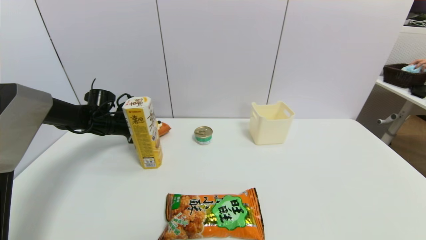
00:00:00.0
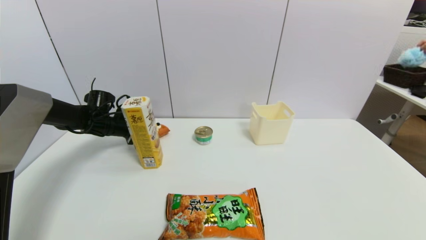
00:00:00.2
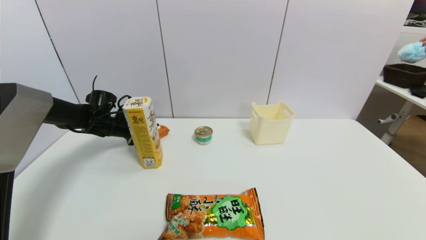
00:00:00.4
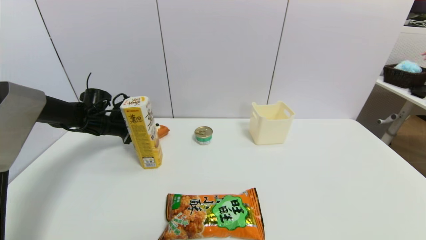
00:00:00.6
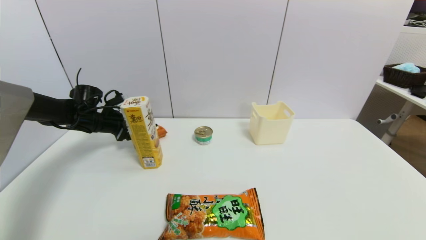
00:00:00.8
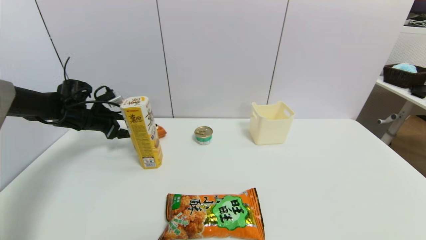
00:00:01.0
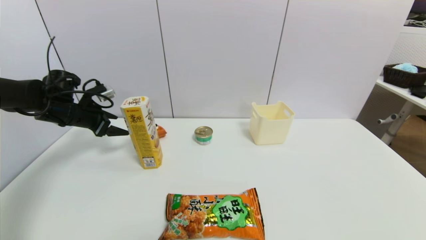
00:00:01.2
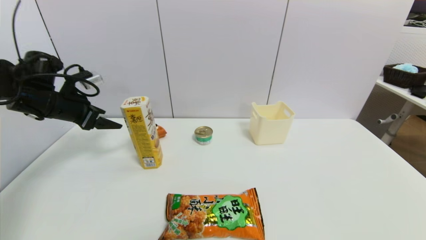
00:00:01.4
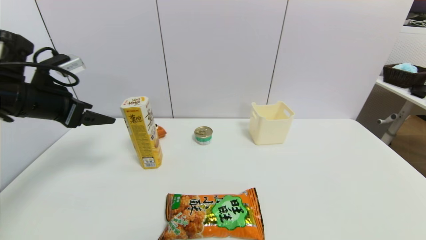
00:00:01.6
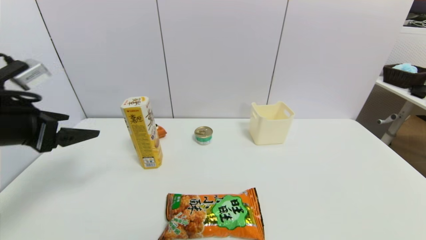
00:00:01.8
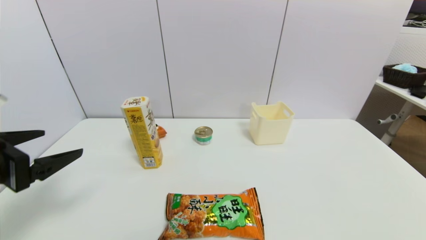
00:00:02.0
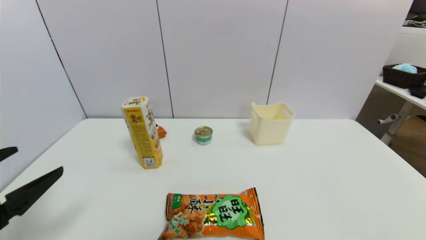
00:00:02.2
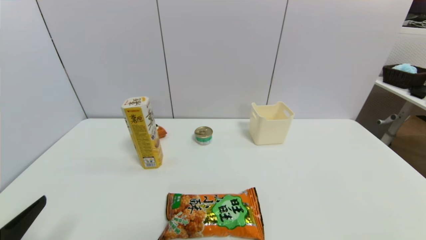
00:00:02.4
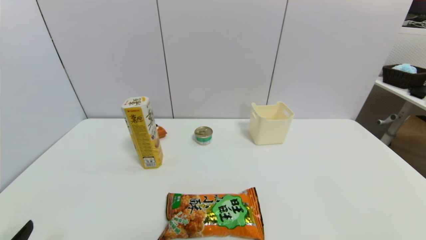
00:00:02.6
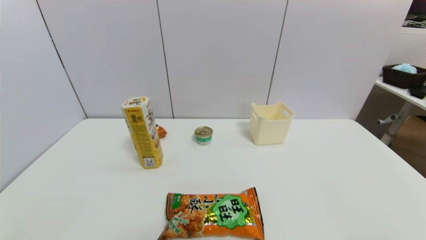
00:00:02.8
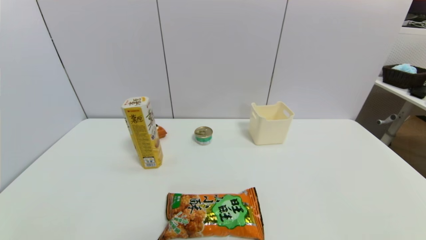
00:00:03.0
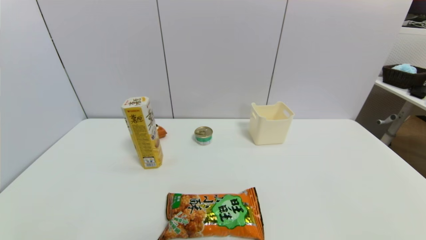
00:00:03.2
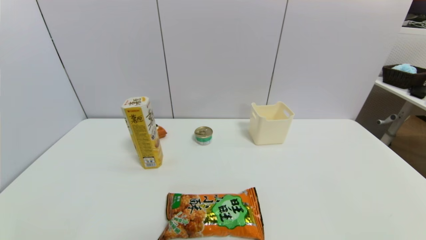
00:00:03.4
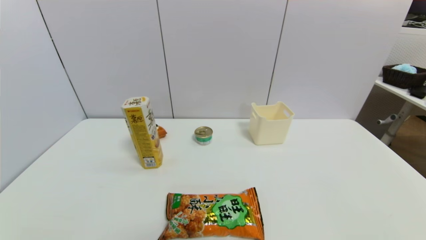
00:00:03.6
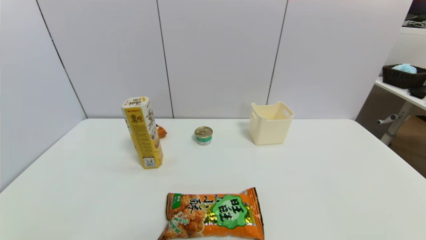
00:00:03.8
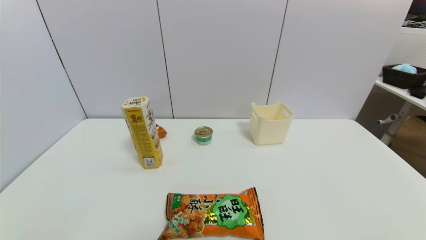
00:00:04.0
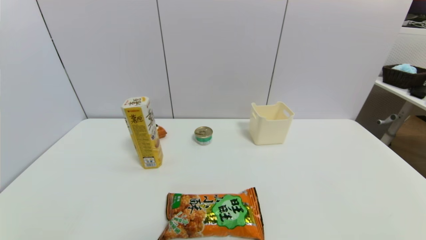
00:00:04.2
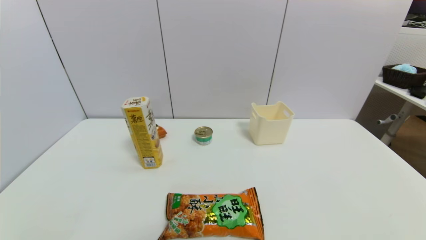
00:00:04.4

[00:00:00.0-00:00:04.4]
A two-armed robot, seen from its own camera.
00:00:00.0 to 00:00:01.4: The left gripper moves upward and backward, about 15 cm, and opens up.
00:00:01.4 to 00:00:03.0: The left gripper heads backward and downward, covering approximately 40 cm.
